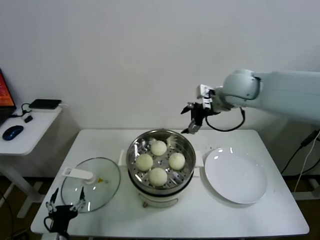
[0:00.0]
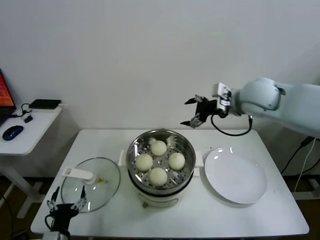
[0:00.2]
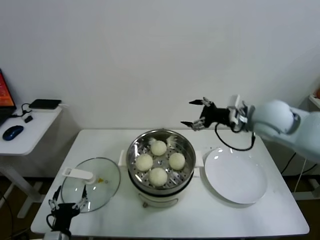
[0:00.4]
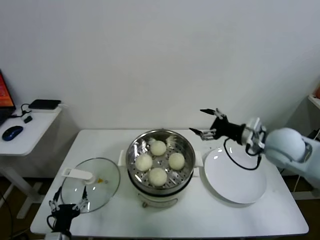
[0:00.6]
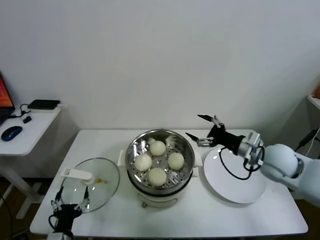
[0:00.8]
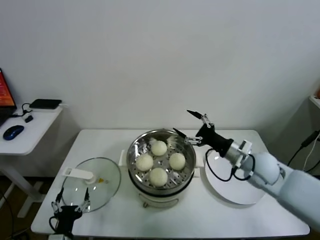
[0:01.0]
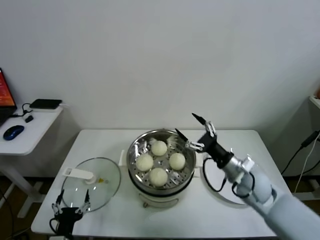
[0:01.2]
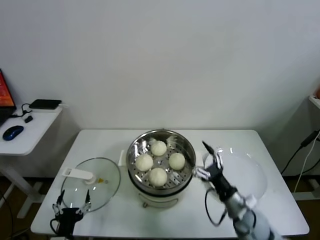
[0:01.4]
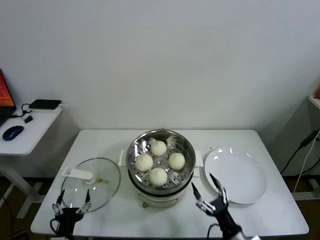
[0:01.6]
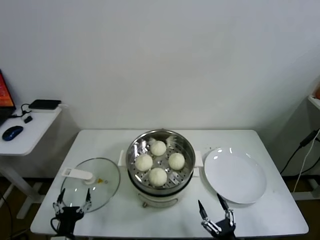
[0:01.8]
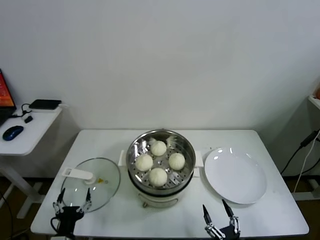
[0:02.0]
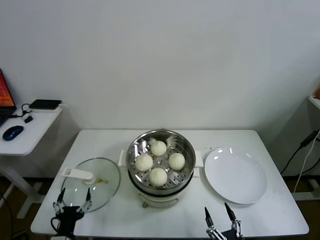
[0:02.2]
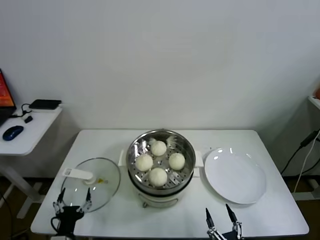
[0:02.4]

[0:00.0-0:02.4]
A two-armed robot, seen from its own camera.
Task of the whole recording: take steamed baozi put them in steamer.
0:00.0 to 0:01.2: The right gripper moves downward and backward, approximately 30 cm.
0:01.2 to 0:02.4: The right gripper shifts some 35 cm backward and downward.
